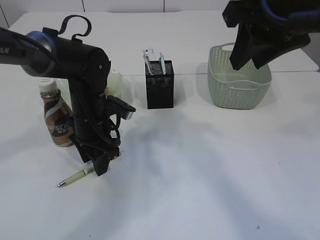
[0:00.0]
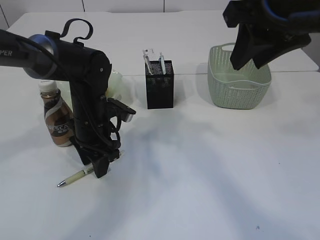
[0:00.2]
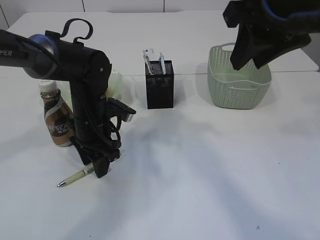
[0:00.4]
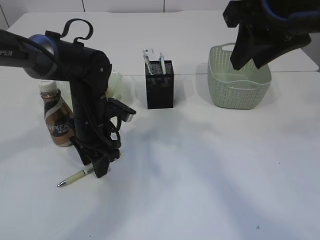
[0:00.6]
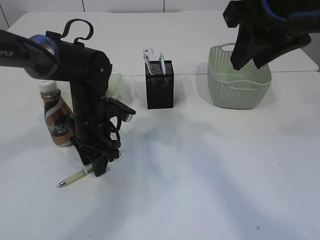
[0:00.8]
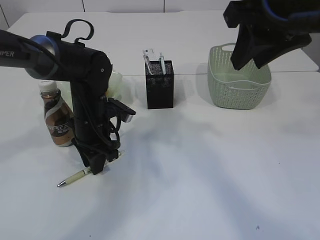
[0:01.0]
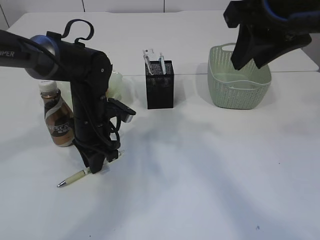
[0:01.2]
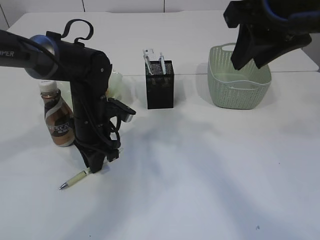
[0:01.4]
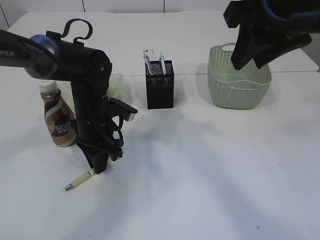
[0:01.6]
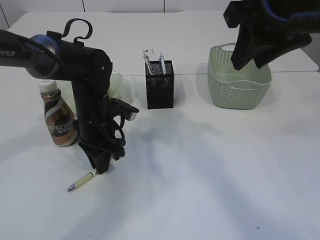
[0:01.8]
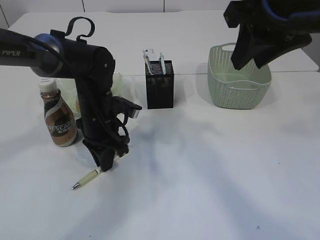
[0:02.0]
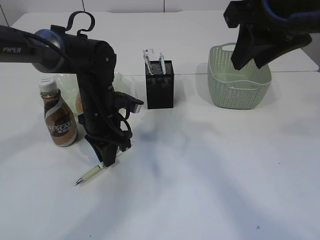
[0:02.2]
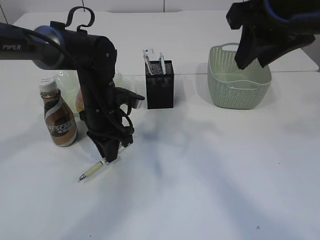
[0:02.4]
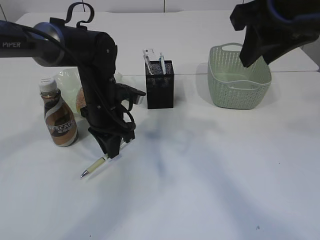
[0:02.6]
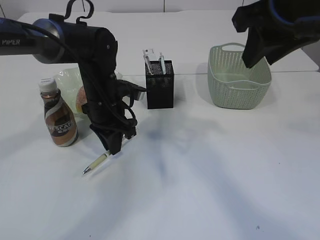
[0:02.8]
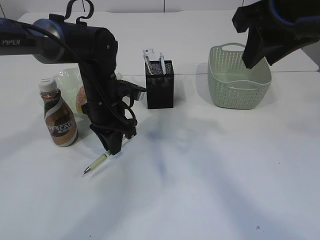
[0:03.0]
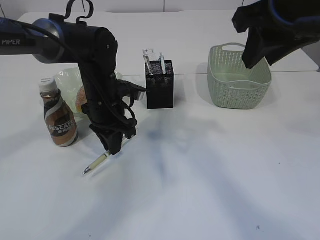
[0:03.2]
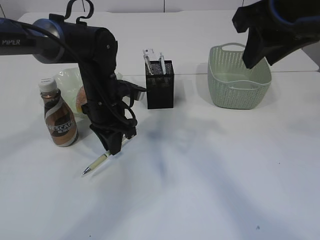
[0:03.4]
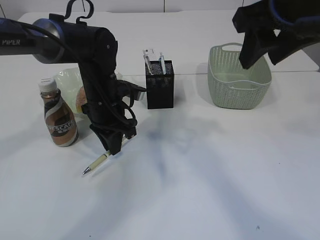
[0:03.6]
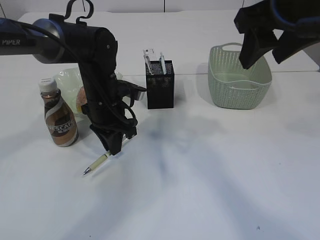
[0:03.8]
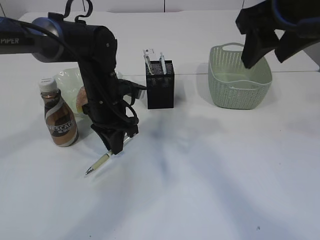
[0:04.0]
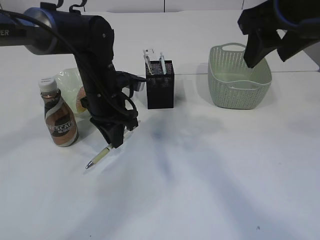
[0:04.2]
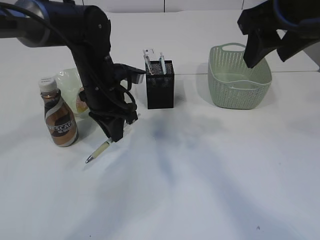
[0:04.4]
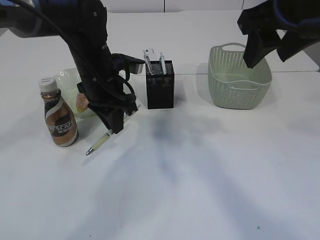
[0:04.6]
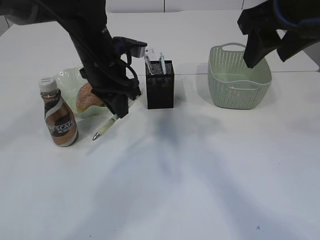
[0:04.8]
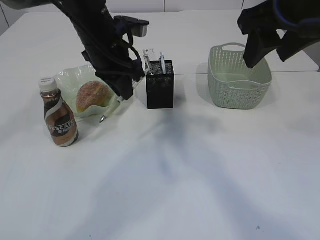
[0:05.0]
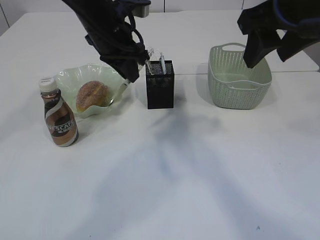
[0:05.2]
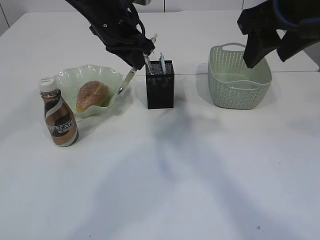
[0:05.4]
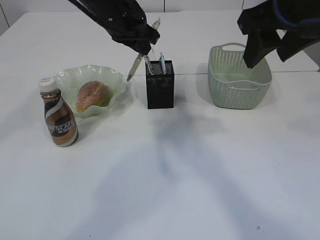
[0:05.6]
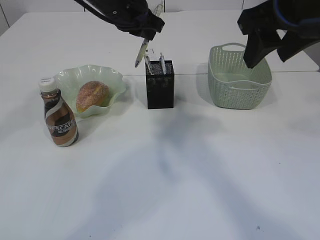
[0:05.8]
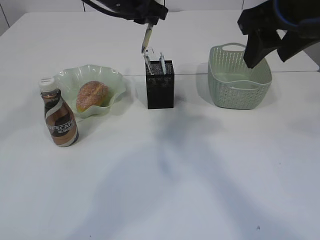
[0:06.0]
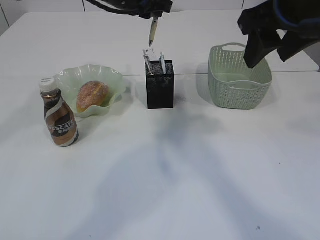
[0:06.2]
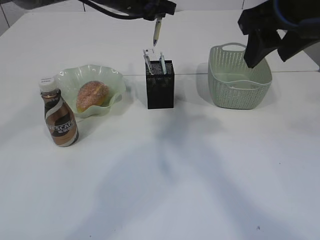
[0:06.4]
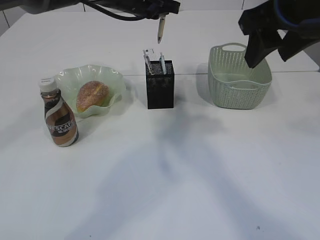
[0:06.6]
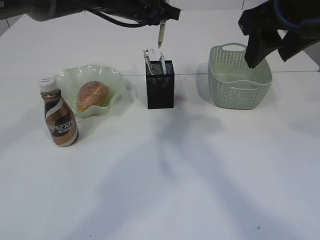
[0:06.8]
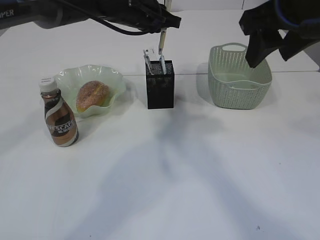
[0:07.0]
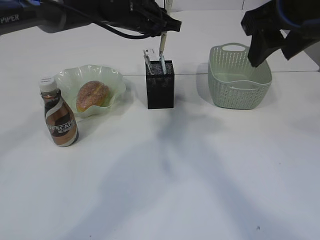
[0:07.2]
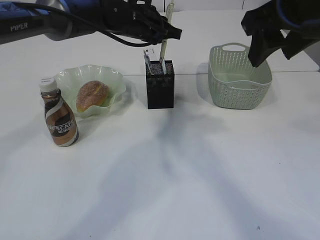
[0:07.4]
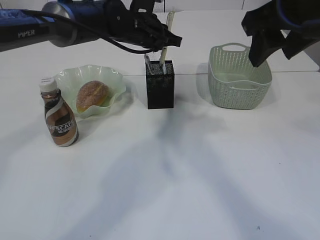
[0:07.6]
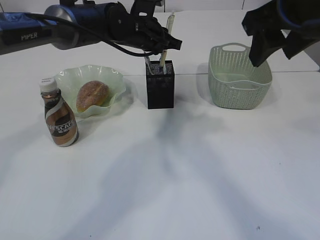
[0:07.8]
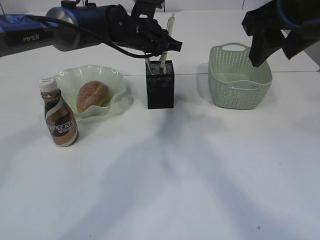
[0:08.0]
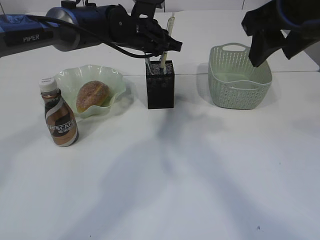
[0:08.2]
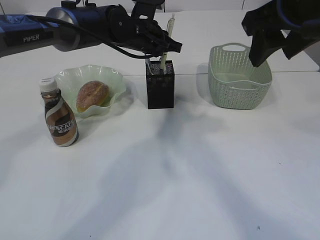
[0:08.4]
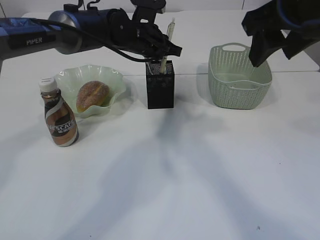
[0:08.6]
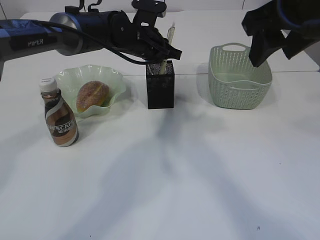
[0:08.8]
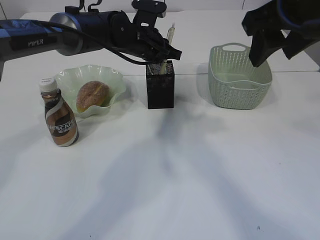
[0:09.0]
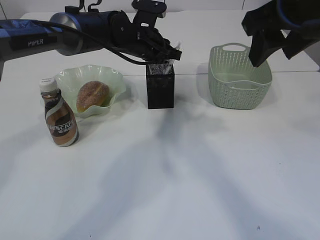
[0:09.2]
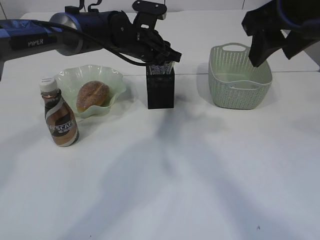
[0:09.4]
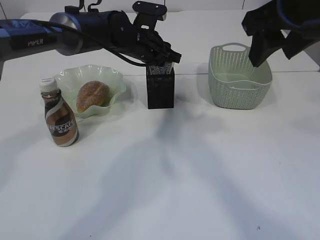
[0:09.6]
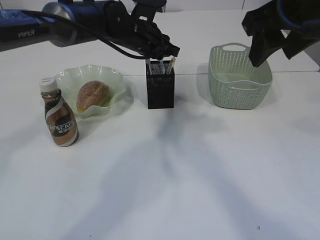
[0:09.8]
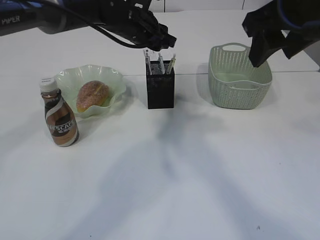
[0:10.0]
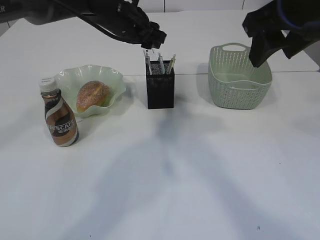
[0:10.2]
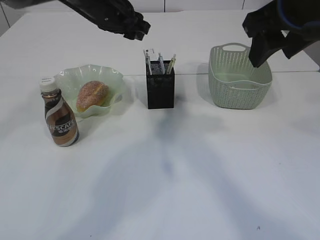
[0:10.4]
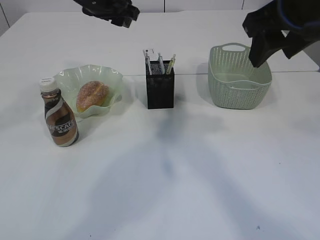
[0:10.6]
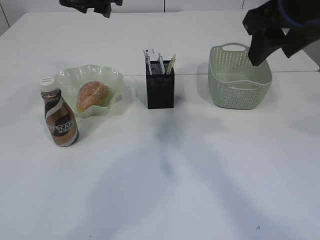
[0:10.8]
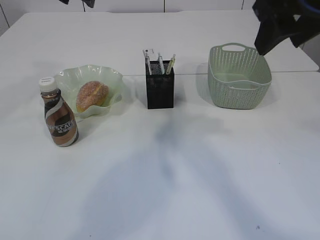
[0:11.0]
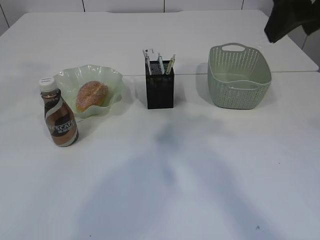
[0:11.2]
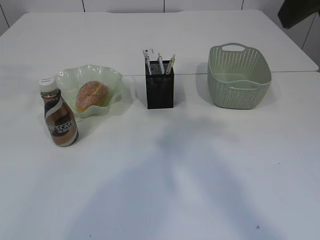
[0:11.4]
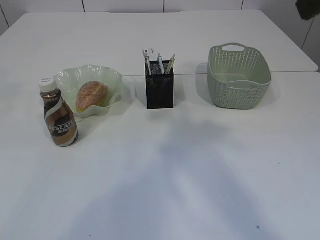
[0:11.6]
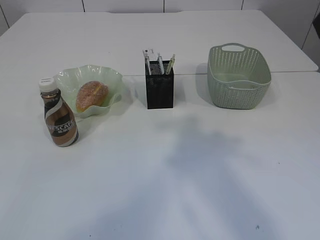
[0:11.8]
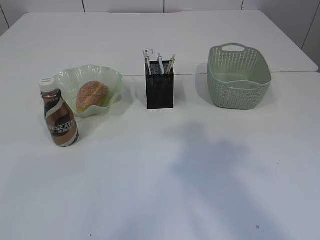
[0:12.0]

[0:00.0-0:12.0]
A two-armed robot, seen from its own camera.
Step, 0:00.0 to 0:05.0: Pick up the pen with left arm.
Step, 0:05.2 to 0:10.4: Place the pen into the pen holder.
0:00.0 to 0:01.6: The left gripper closes.
0:01.6 to 0:03.0: The grippers move only a little.
0:03.0 to 0:04.4: The grippers stay close to where they were, moving slightly.
0:04.4 to 0:06.0: The left gripper moves upward and forward, about 15 cm.
0:06.0 to 0:07.6: The left gripper shifts about 10 cm downward.
0:07.6 to 0:09.0: The grippers move only a little.
0:09.0 to 0:10.4: The left gripper shifts roughly 10 cm upward and to the left, and opens.
0:10.4 to 0:12.0: The right gripper heads backward and upward, covering about 10 cm. The left gripper moves upward, backward and to the left, about 40 cm.

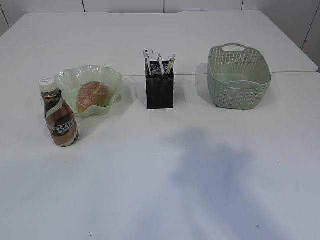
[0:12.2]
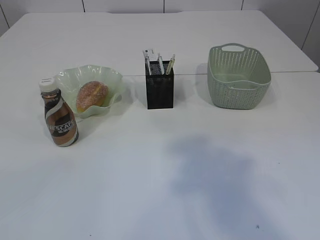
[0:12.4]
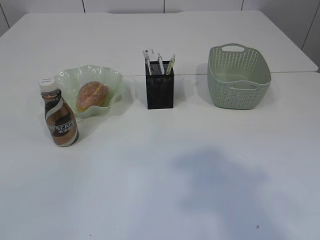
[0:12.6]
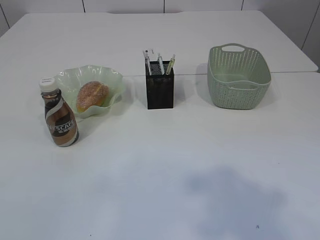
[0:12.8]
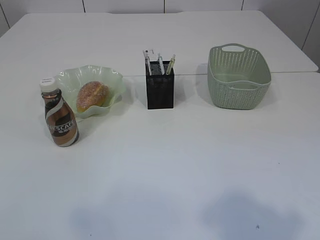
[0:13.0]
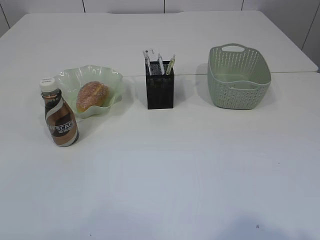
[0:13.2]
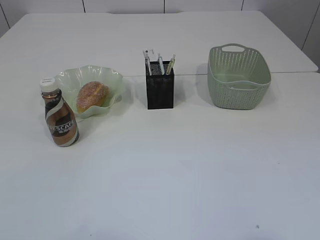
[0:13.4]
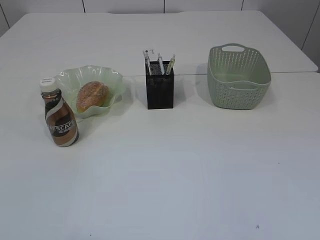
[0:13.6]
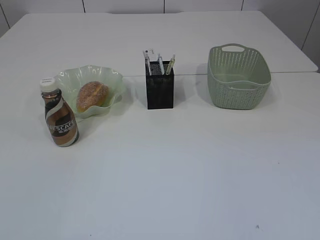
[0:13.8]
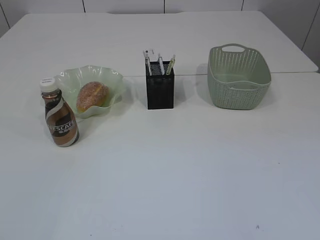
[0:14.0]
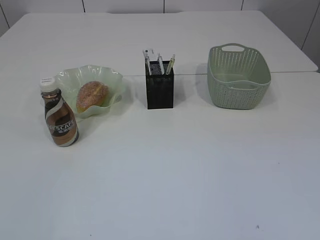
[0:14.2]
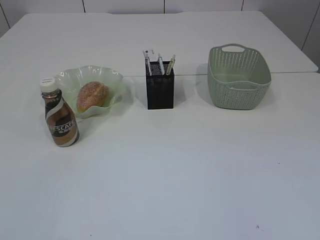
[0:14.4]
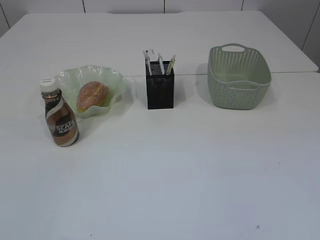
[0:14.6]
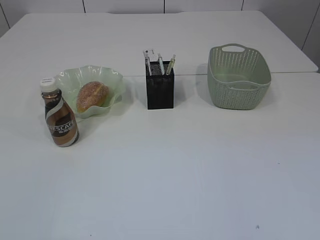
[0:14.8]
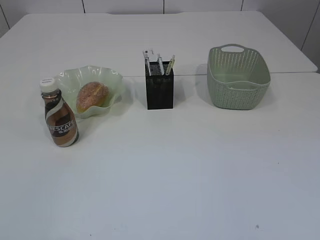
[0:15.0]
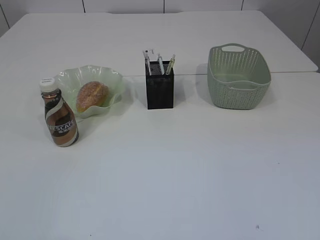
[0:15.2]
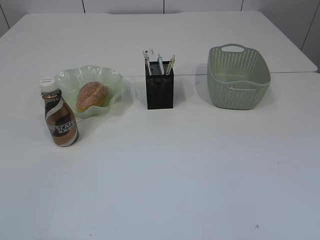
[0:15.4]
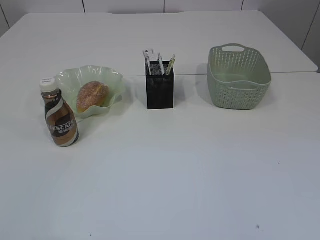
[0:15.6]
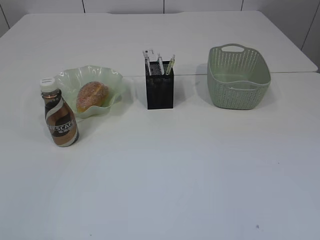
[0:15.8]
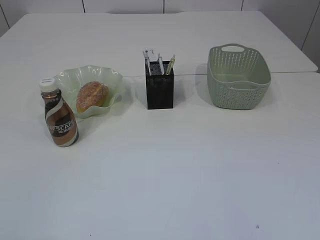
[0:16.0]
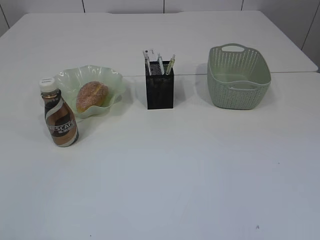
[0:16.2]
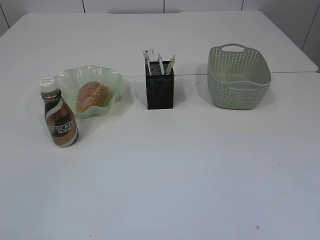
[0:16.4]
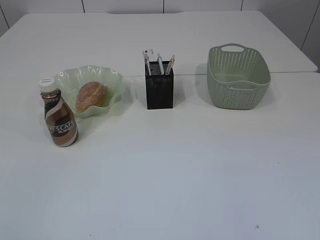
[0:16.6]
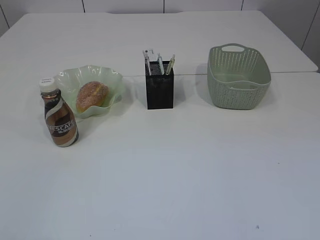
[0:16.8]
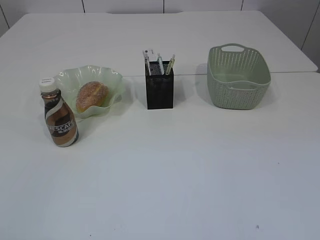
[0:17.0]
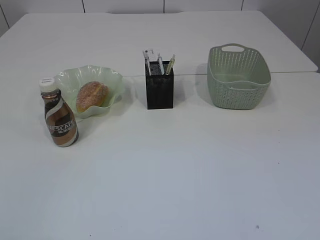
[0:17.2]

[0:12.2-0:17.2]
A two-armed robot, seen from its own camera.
0:12.2 to 0:13.8: The right gripper travels backward and downward by roughly 20 cm, while the left gripper is displaced downward and backward by approximately 30 cm.

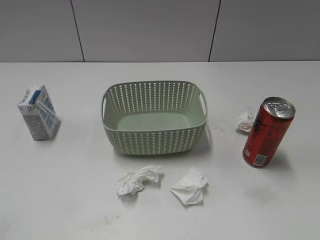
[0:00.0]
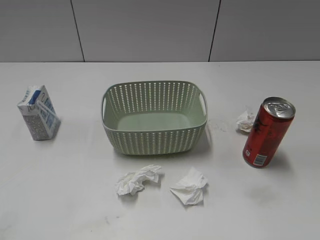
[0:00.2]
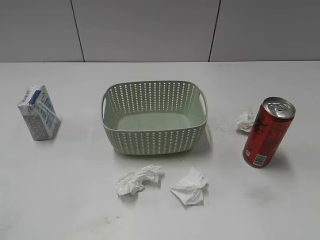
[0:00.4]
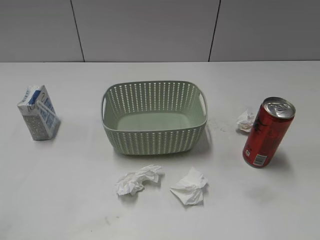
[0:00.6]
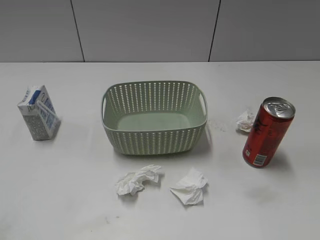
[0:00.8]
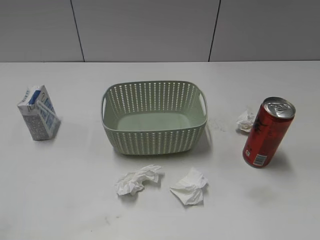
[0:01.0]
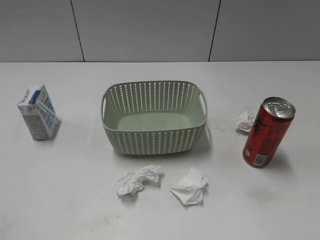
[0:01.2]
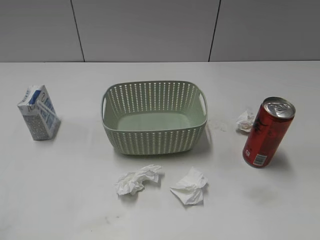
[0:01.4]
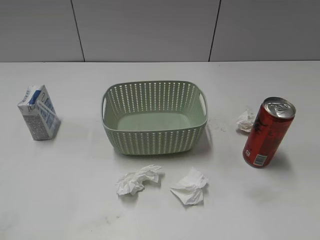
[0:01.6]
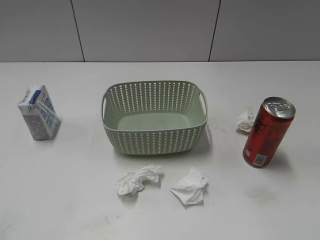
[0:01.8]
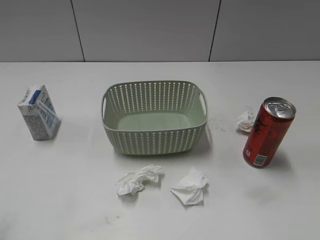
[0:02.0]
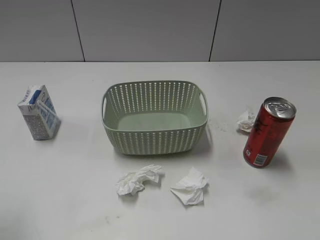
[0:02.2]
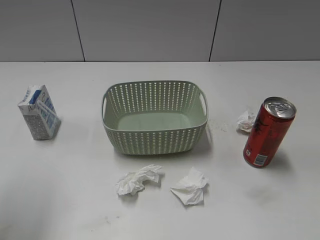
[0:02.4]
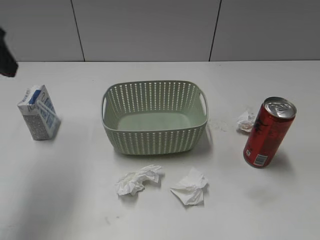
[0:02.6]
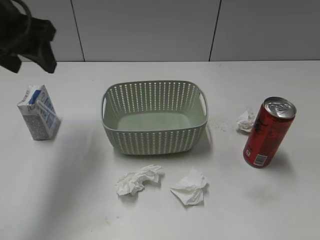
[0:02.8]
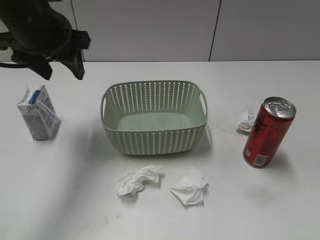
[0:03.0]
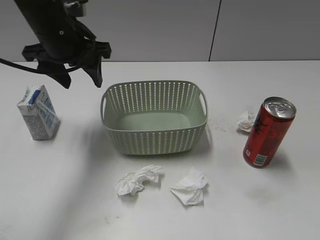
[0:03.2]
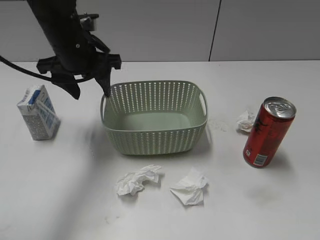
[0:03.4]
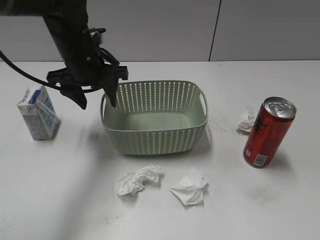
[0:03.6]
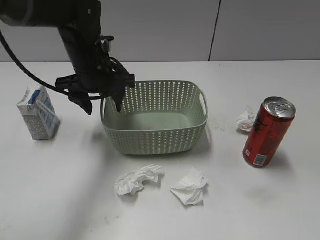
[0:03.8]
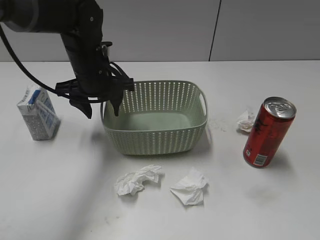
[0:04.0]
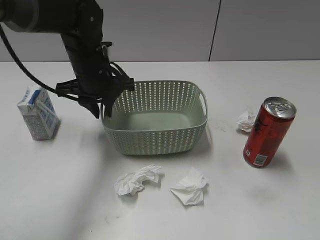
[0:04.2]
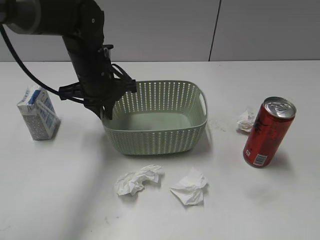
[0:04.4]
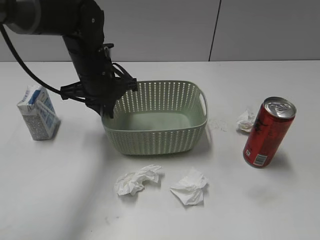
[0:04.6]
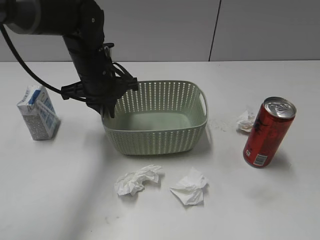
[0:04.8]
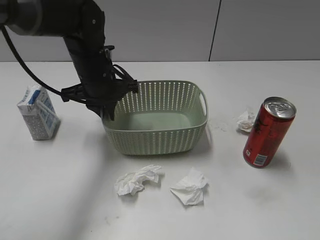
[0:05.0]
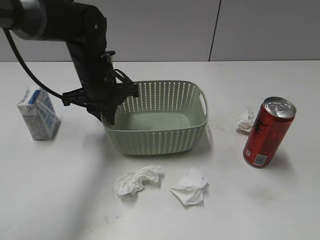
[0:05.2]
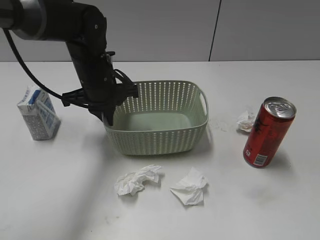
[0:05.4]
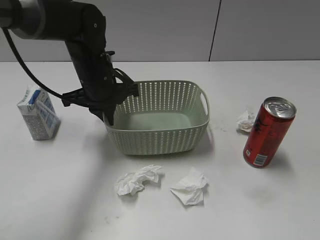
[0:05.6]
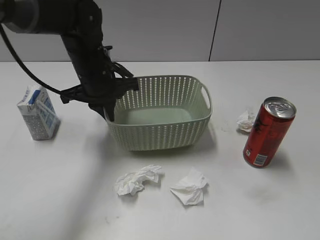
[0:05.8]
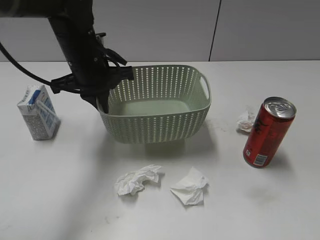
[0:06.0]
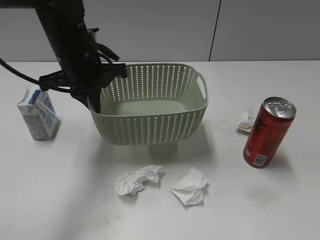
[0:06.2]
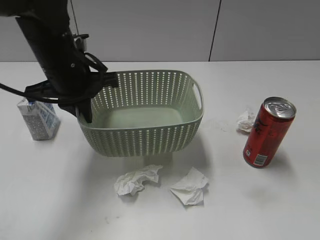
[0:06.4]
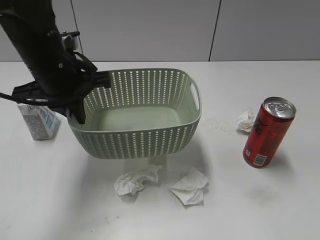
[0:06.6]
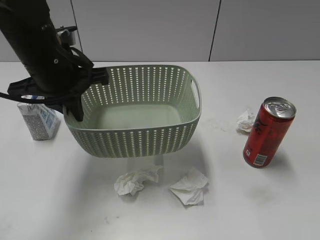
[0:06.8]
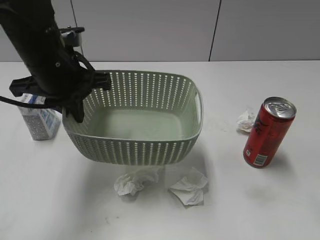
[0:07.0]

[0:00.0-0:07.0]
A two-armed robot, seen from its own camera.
Step, 0:02.6 to 0:05.4: Grasp the basket with left gripper.
0:01.4 to 0:02.8: The left gripper travels forward by roughly 30 cm.
0:02.8 to 0:04.2: The left gripper heads downward, to the right and forward, covering about 20 cm, and closes.
0:04.2 to 0:05.6: The grippers stay close to where they were, moving slightly.
0:05.6 to 0:07.0: The right gripper goes some 20 cm forward and upward, while the left gripper heads backward and upward, covering approximately 10 cm.
